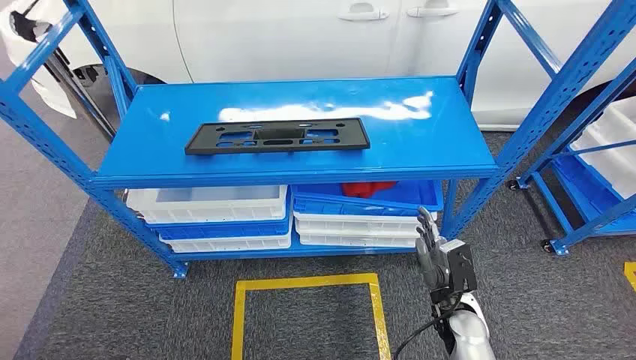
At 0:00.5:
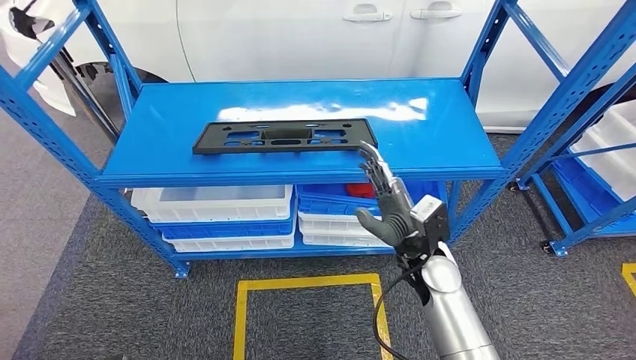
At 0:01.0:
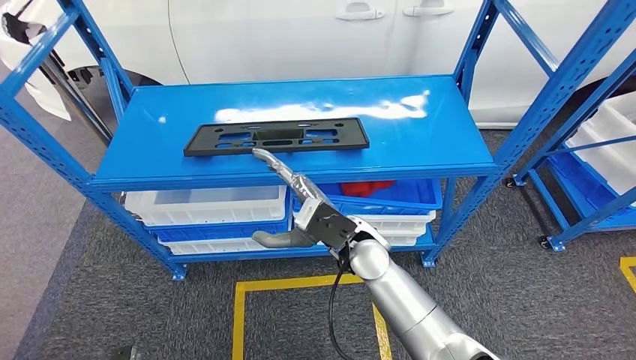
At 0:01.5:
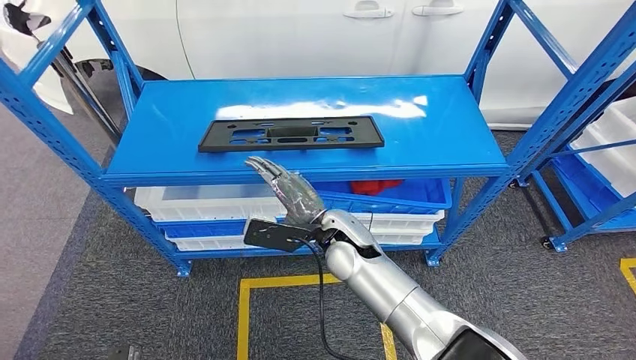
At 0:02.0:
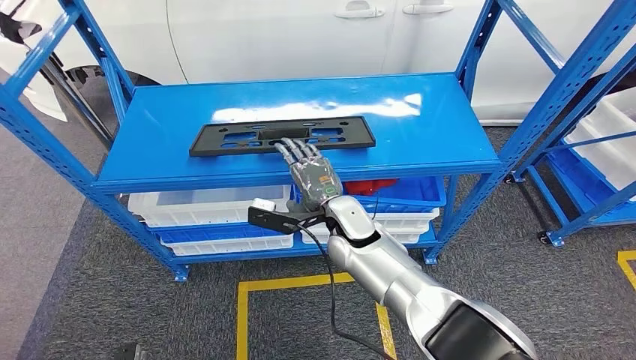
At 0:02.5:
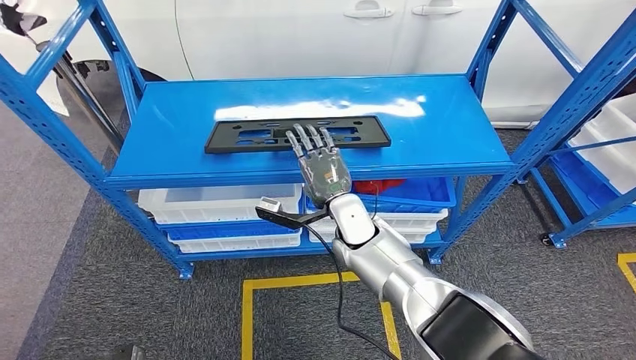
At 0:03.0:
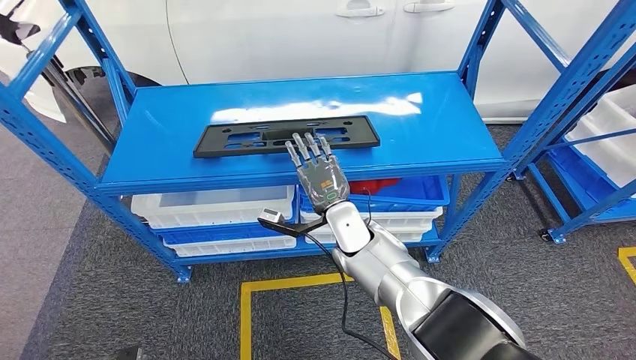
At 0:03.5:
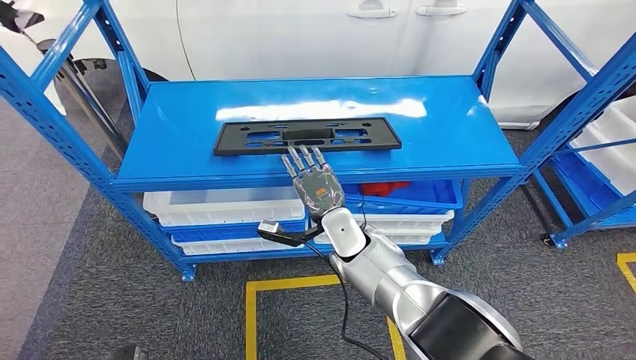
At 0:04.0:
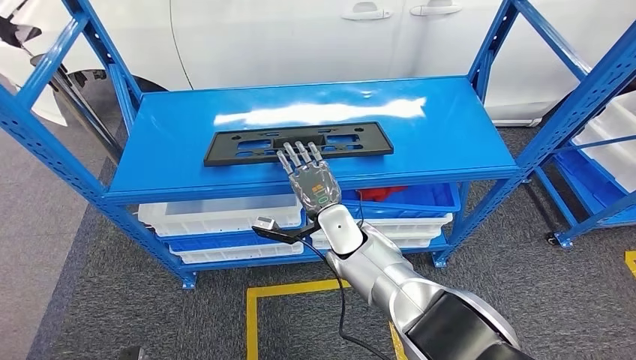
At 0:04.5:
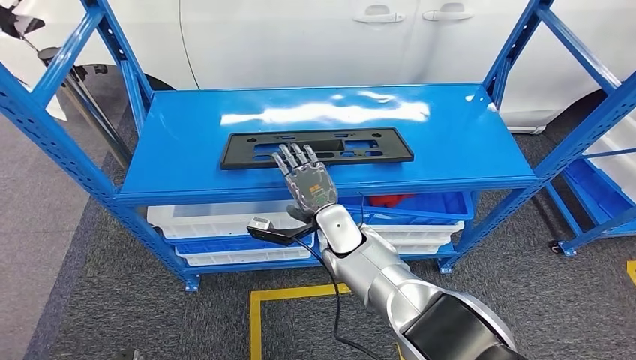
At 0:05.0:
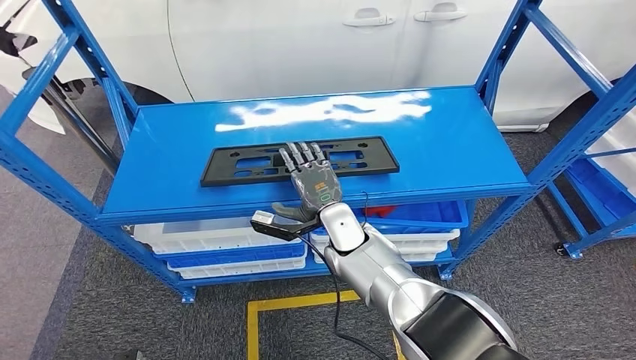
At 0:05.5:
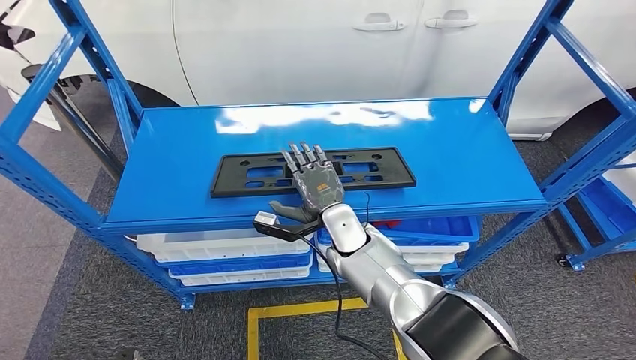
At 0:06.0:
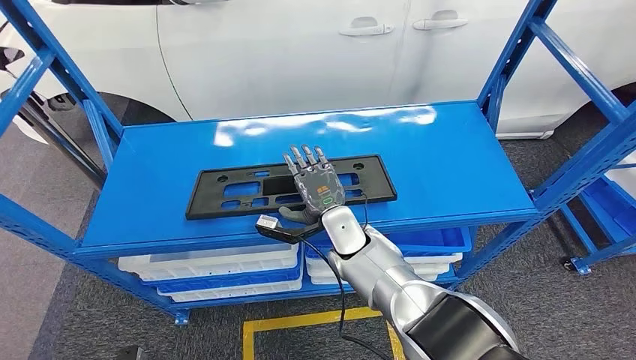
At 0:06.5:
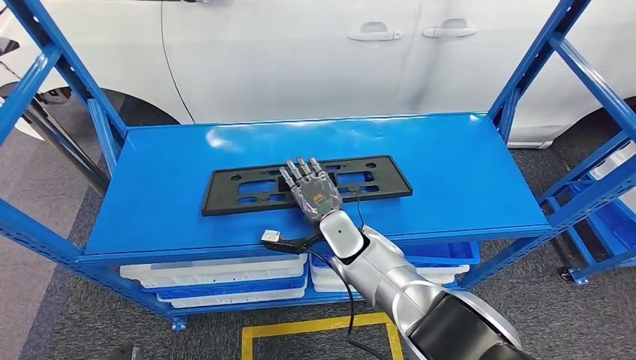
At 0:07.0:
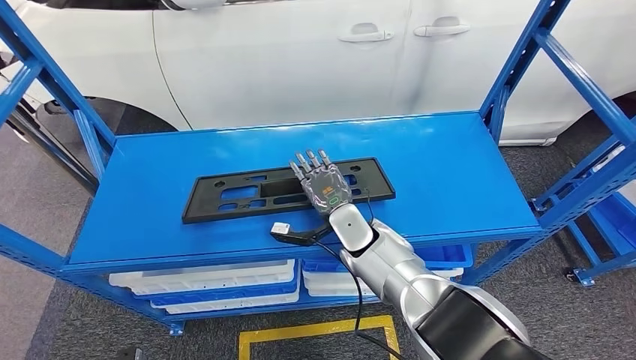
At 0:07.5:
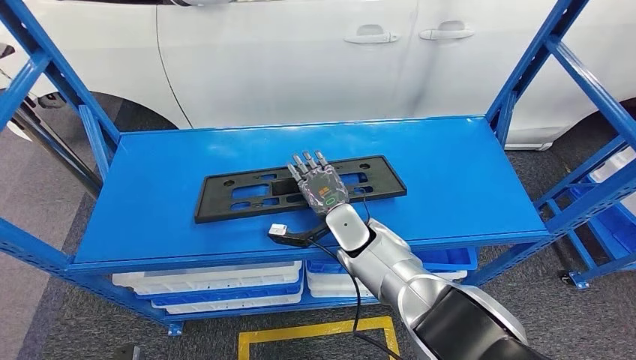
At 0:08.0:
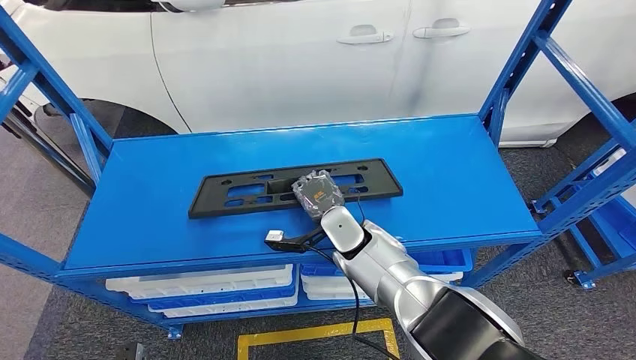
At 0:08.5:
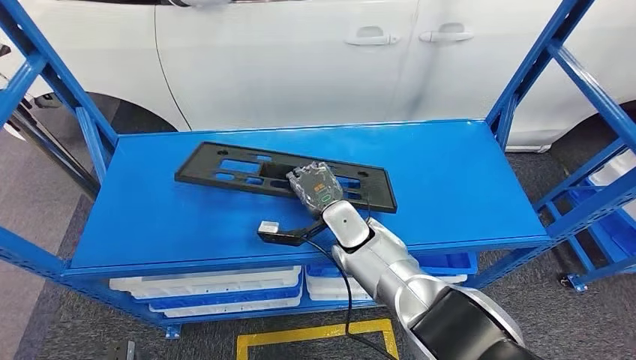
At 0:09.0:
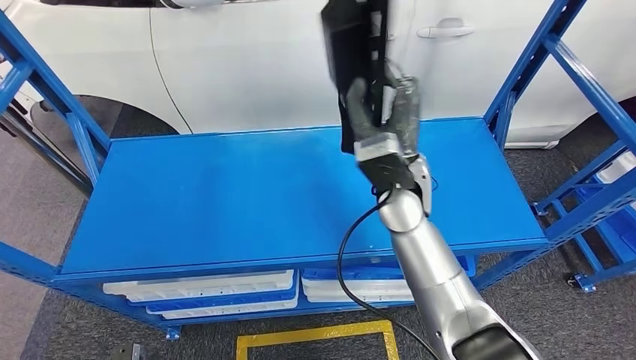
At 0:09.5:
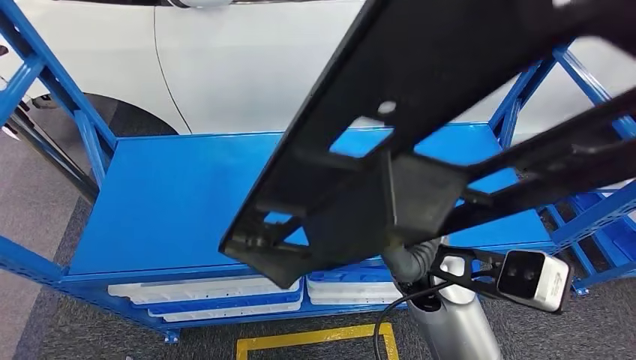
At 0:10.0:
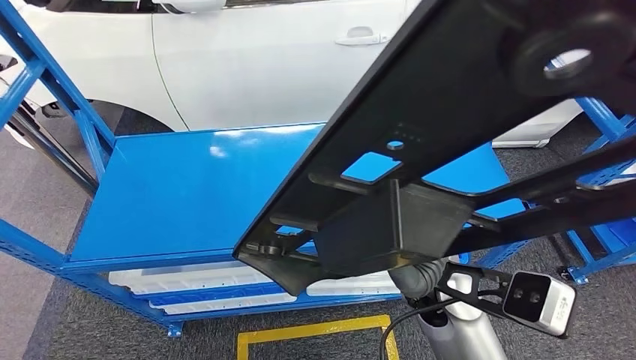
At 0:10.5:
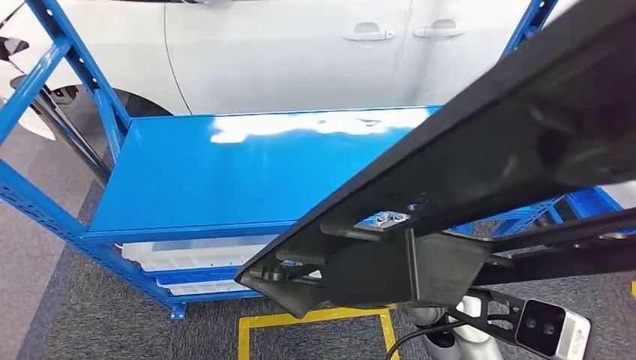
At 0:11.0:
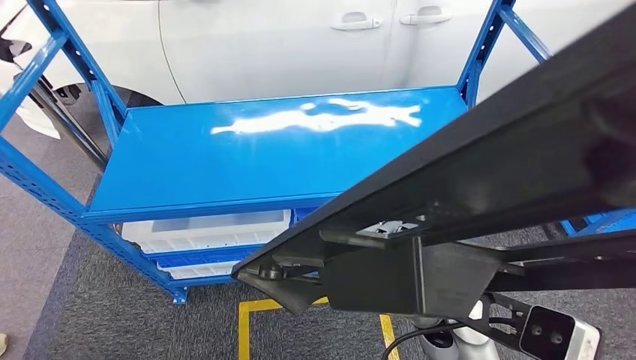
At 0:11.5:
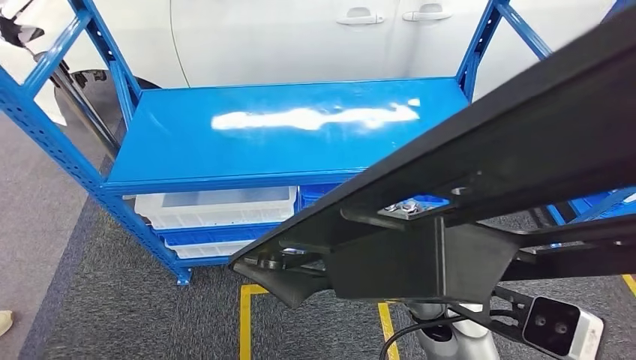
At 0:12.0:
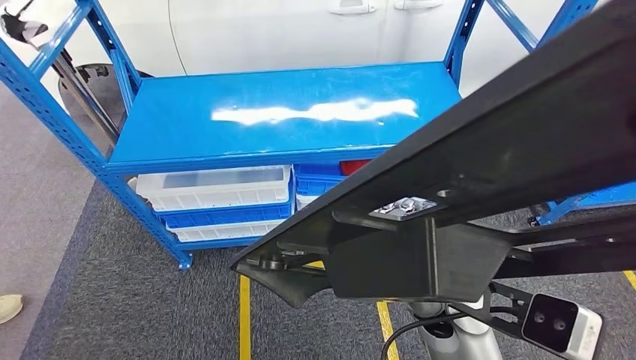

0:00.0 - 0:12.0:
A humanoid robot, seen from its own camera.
Step, 0:00.0 - 0:08.5: Pick up the large material from the shelf.

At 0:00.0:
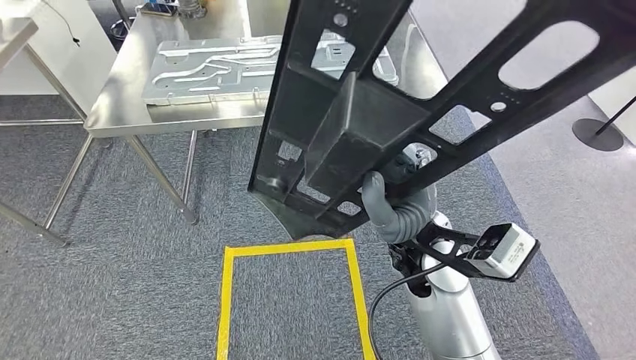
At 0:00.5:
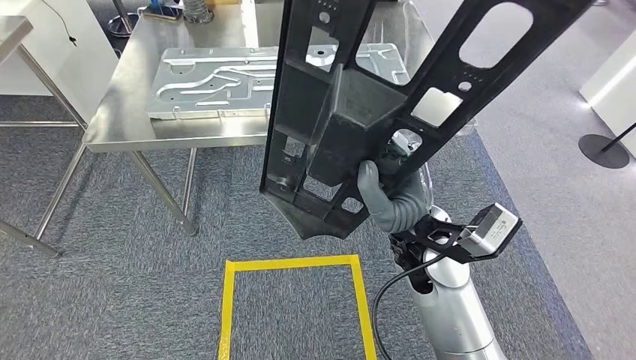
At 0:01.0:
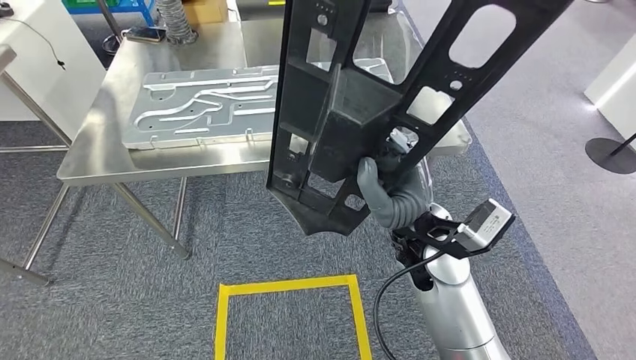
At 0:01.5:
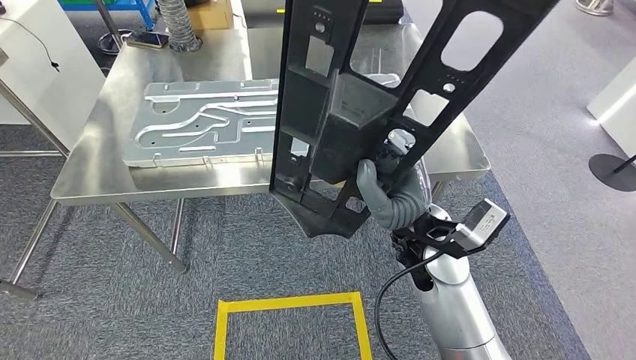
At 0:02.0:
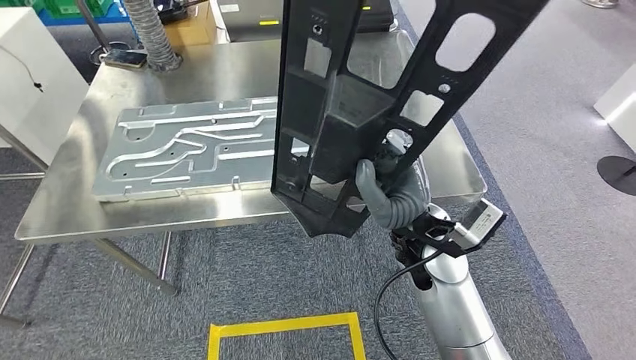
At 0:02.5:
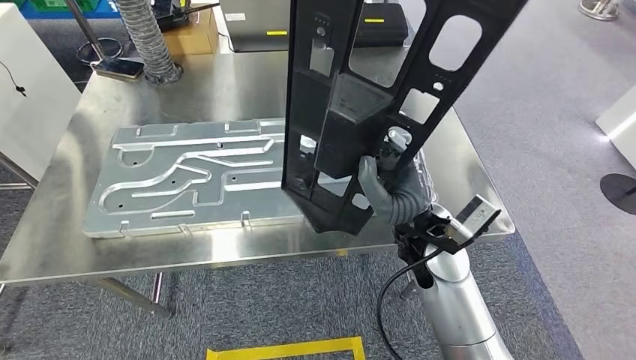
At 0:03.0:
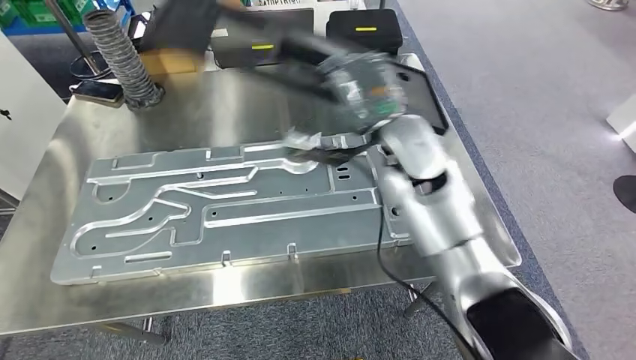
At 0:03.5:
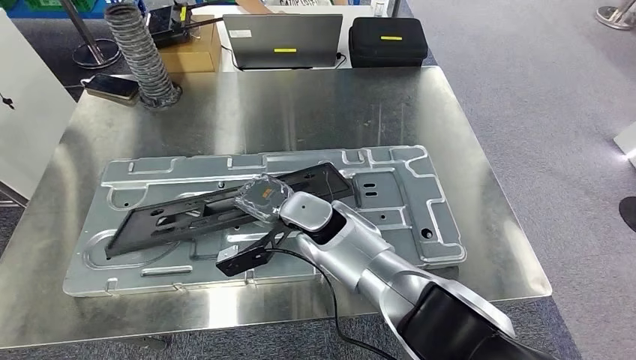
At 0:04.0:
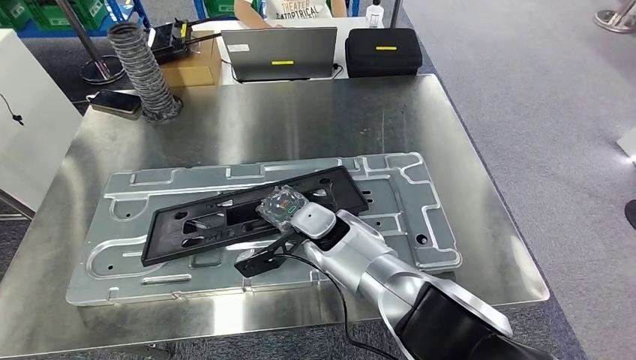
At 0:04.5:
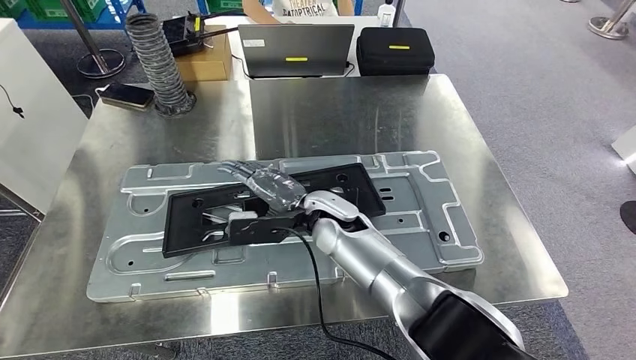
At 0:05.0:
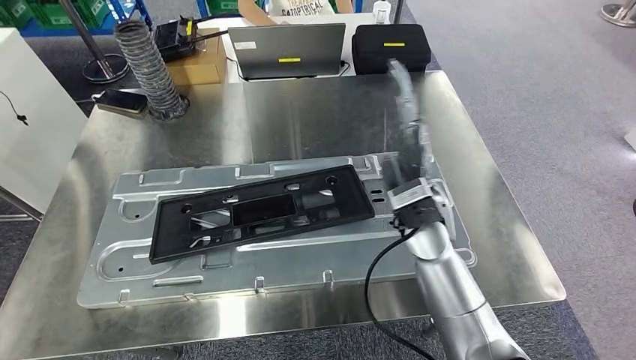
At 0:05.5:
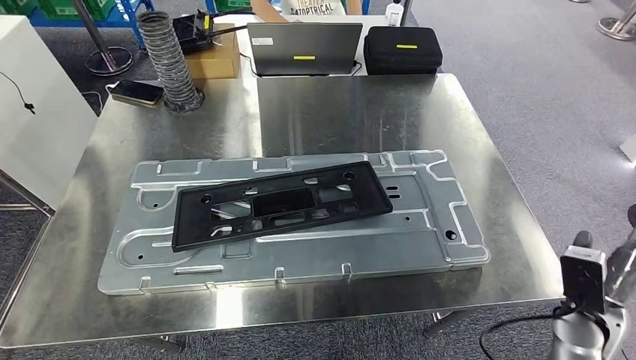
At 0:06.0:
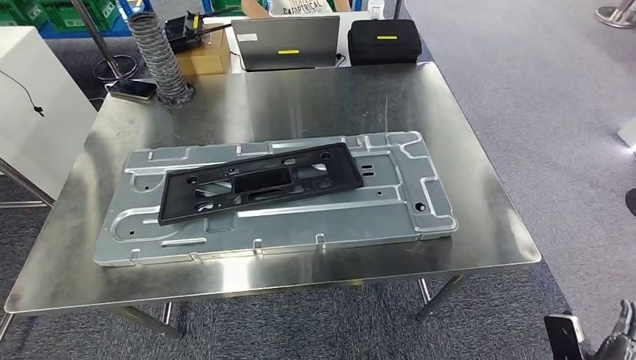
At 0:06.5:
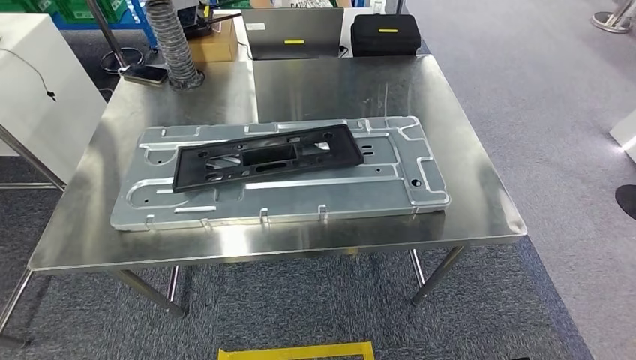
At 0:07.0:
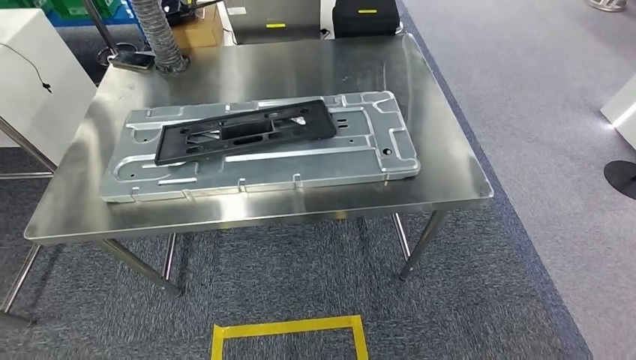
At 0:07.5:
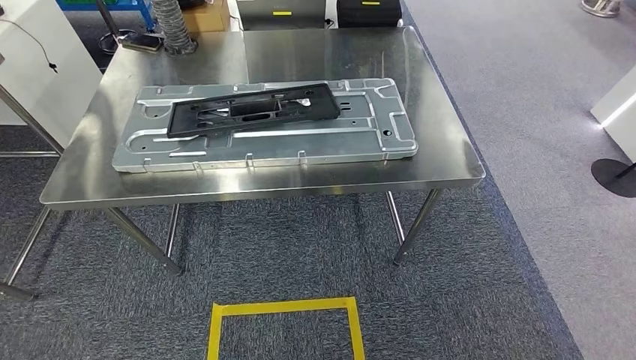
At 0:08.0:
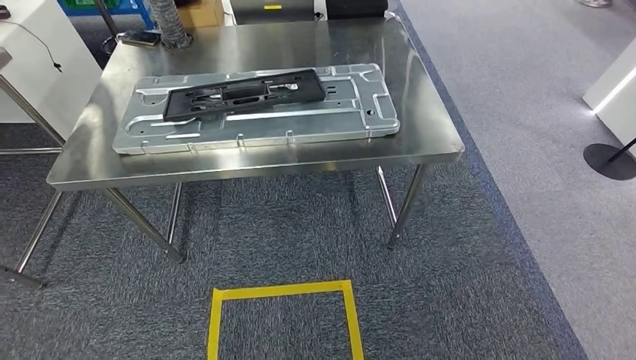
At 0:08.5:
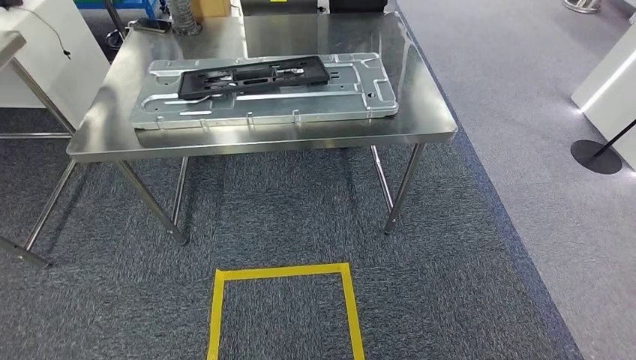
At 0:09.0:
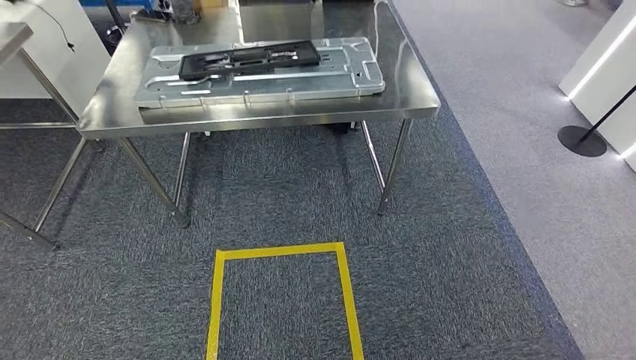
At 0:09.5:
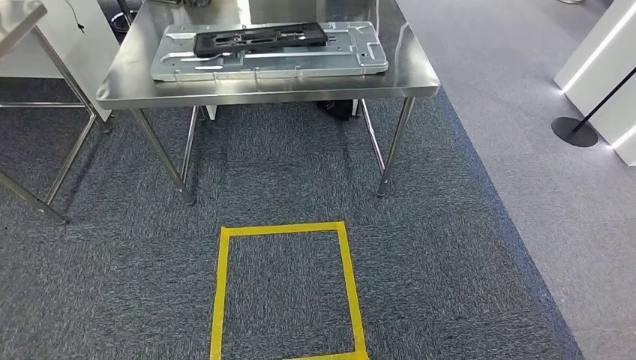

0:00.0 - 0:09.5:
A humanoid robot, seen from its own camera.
Step, 0:00.0 - 0:02.5: Move the large material to the front of the workbench.
Step, 0:03.0 - 0:06.0: Insert the large material into the corresponding hole on the workbench.
Step, 0:06.5 - 0:09.5: Move to the initial position of the shelf.
